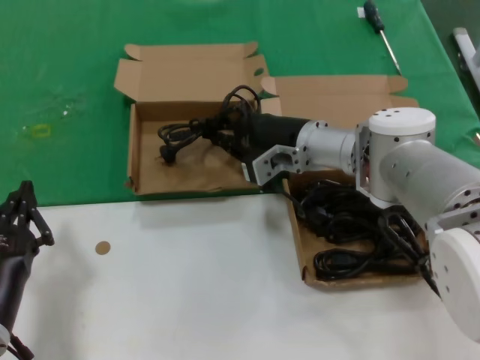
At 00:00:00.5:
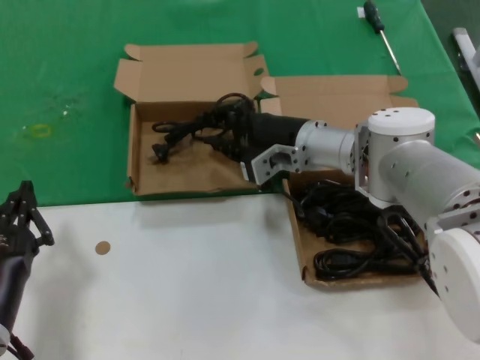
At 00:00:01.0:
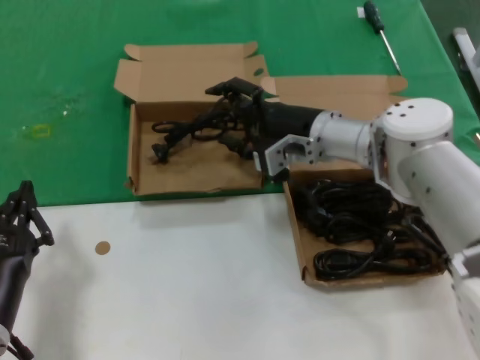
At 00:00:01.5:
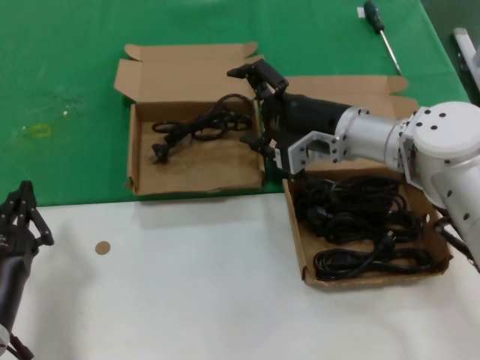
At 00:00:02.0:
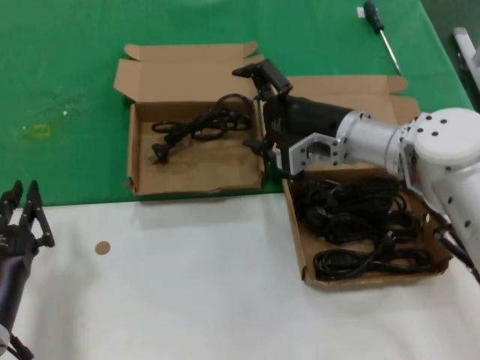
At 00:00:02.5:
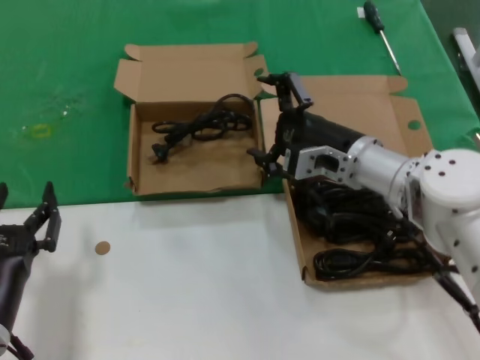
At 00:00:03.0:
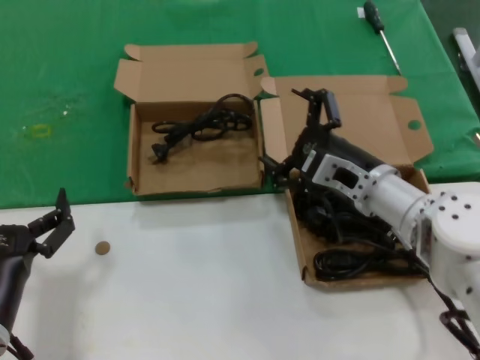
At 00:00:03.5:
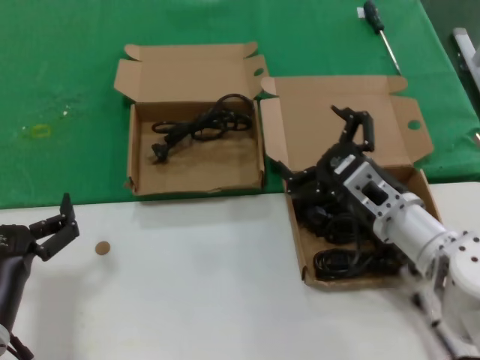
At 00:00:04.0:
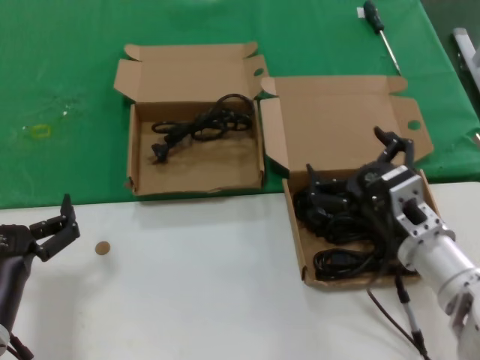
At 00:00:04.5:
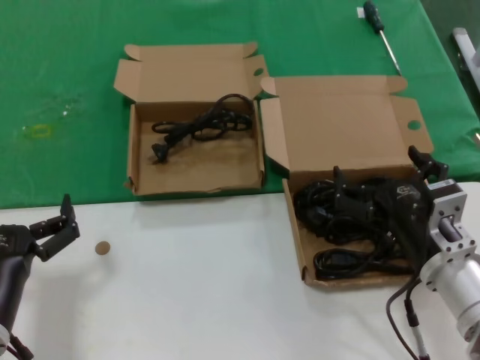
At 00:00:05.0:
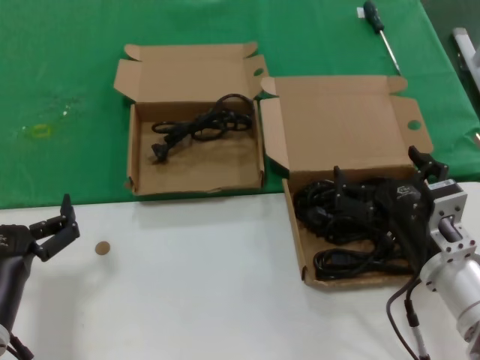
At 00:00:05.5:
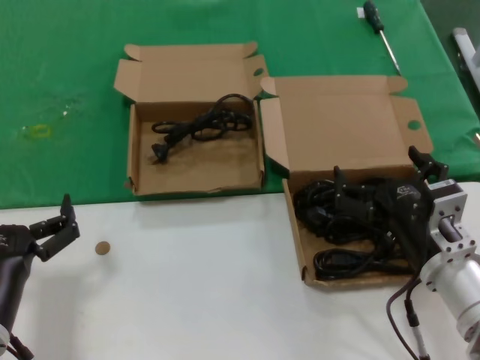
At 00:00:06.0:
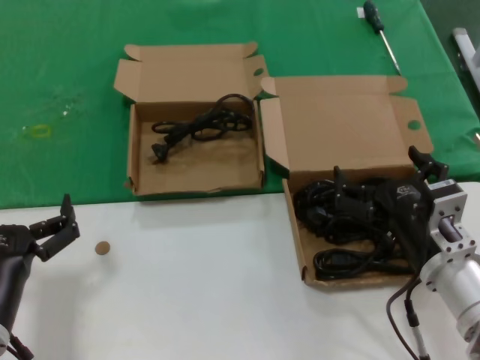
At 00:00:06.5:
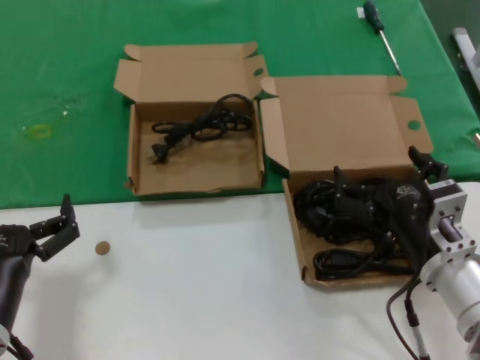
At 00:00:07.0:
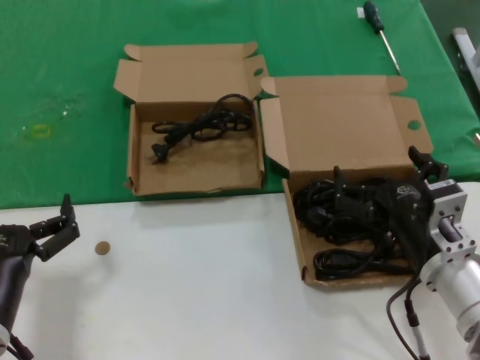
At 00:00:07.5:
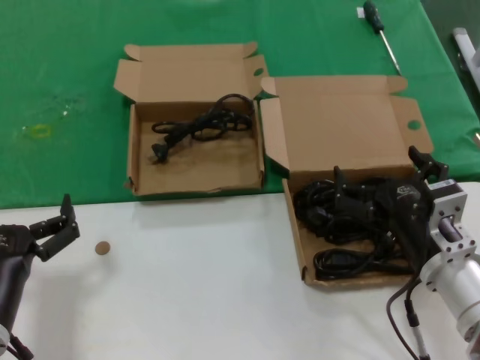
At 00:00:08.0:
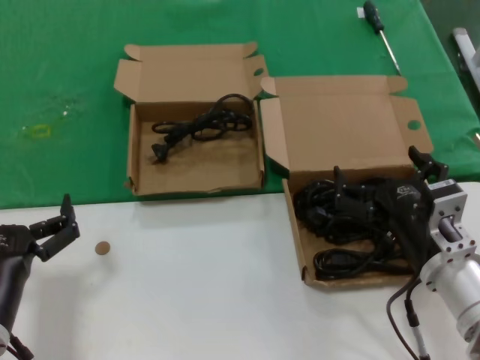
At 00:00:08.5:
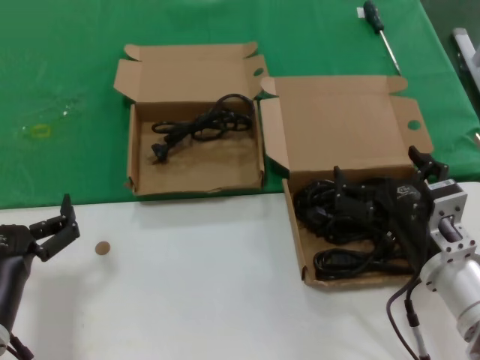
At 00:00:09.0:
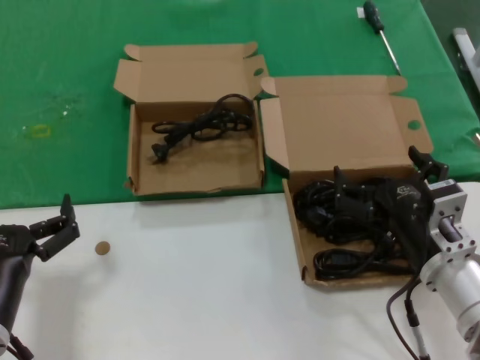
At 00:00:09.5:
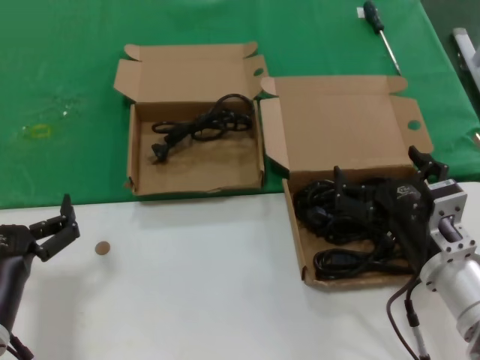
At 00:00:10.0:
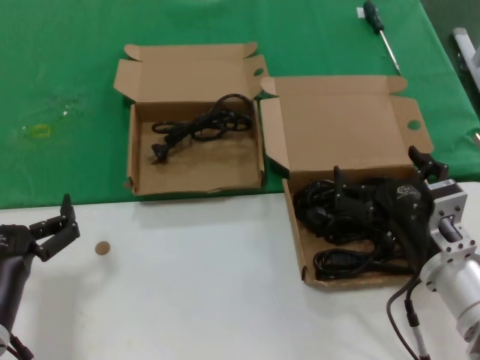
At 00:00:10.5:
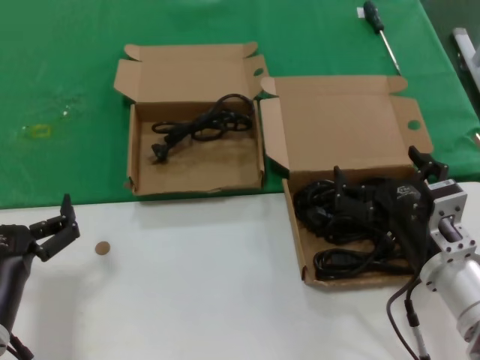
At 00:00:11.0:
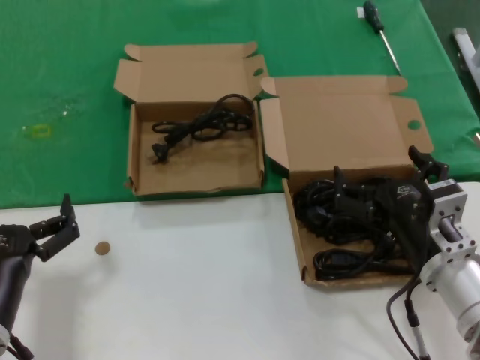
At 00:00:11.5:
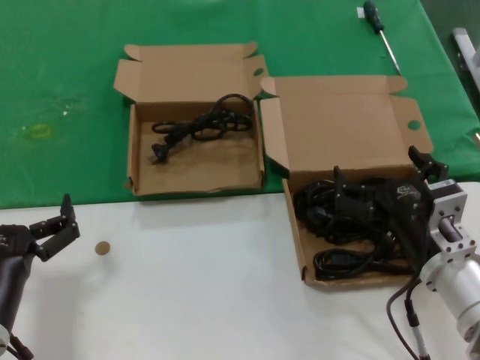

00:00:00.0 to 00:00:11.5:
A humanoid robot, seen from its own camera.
Task of the whole recording: take the parts from the box containing them and put them into an empty box.
00:00:00.0 to 00:00:02.0: The right hand changes place by about 5 cm.
00:00:02.0 to 00:00:04.0: The right hand moves backward and downward, some 20 cm.
00:00:04.0 to 00:00:06.0: The hands move only a little.
00:00:06.0 to 00:00:11.5: Neither hand changes place.

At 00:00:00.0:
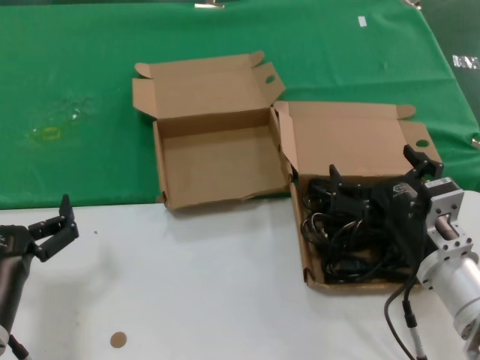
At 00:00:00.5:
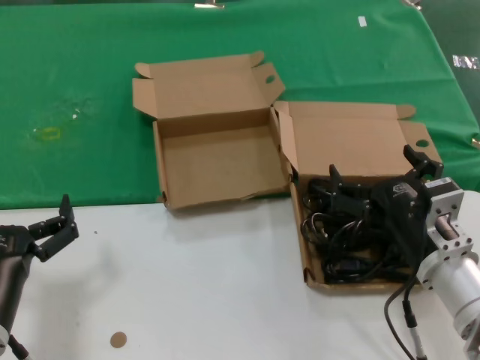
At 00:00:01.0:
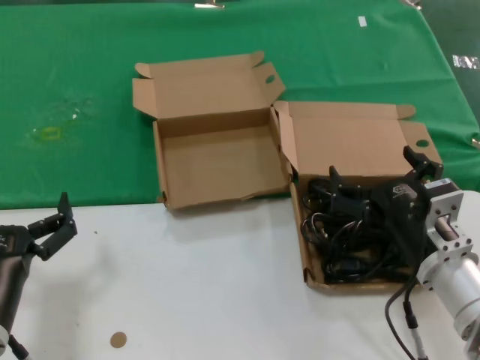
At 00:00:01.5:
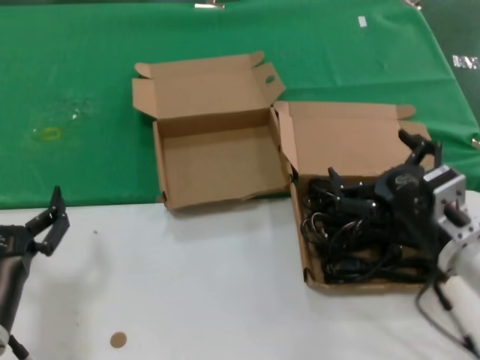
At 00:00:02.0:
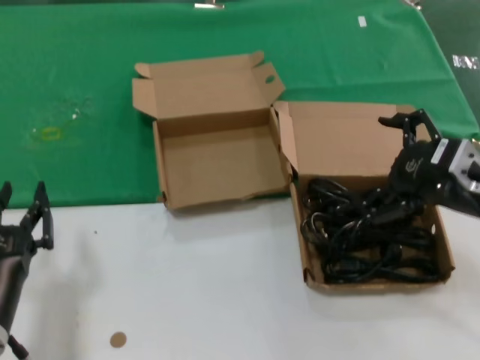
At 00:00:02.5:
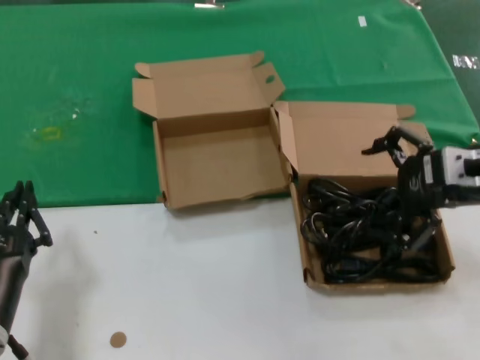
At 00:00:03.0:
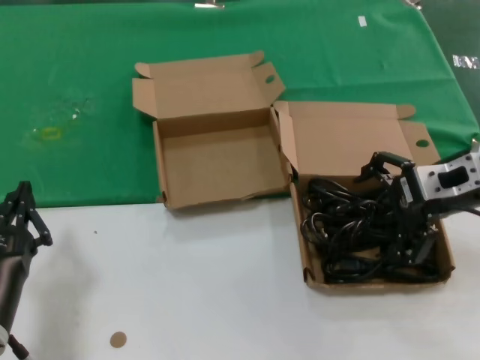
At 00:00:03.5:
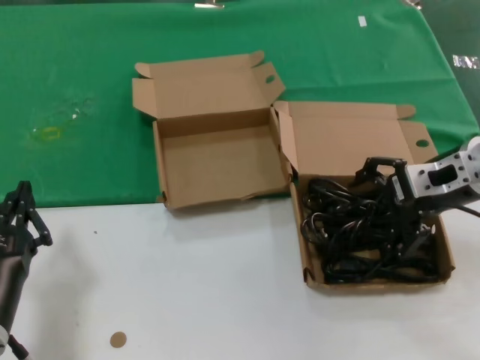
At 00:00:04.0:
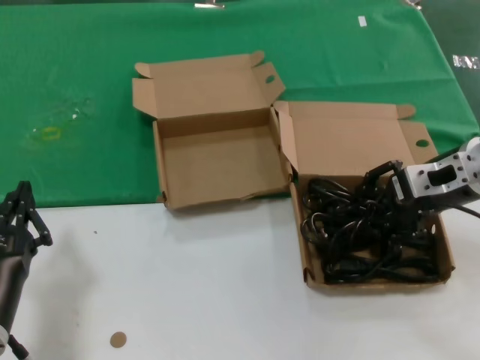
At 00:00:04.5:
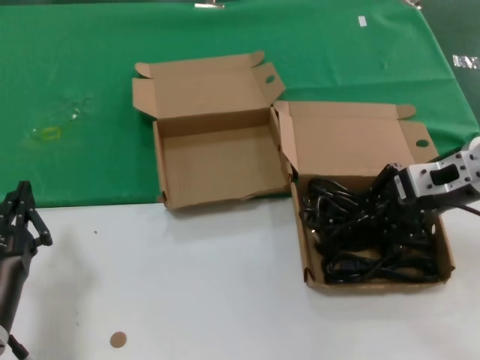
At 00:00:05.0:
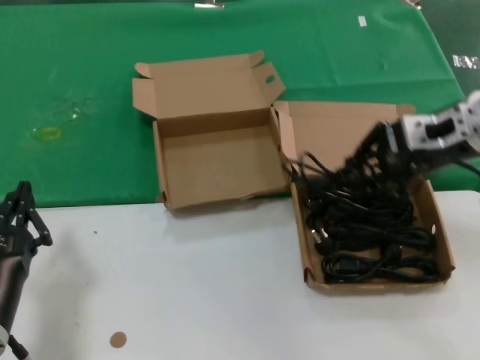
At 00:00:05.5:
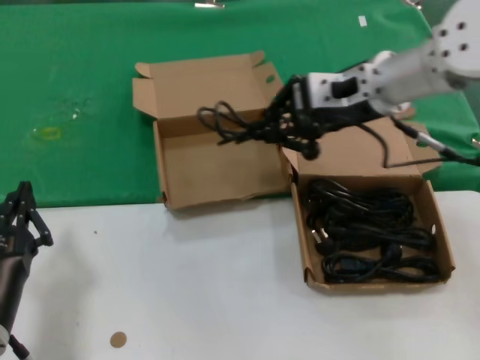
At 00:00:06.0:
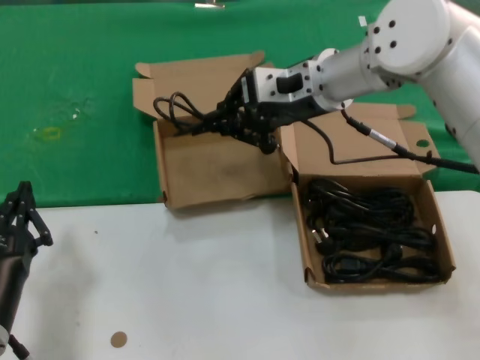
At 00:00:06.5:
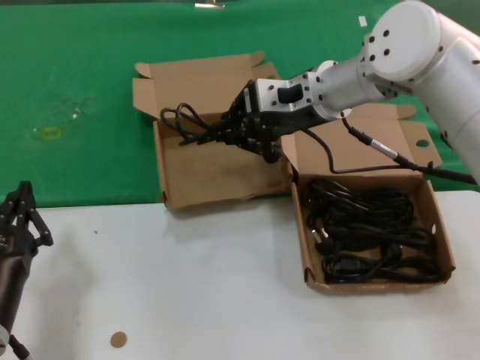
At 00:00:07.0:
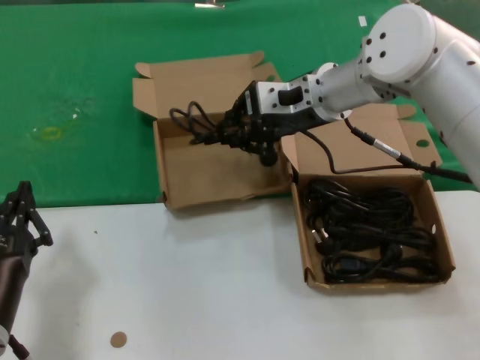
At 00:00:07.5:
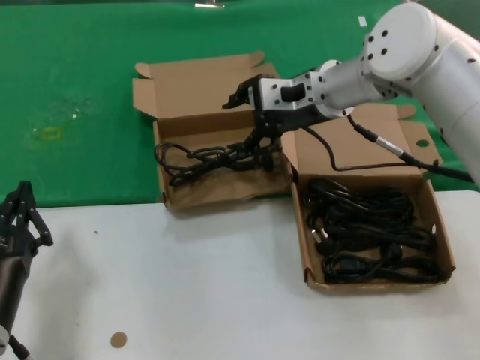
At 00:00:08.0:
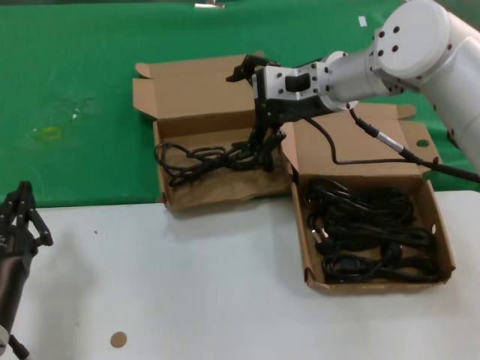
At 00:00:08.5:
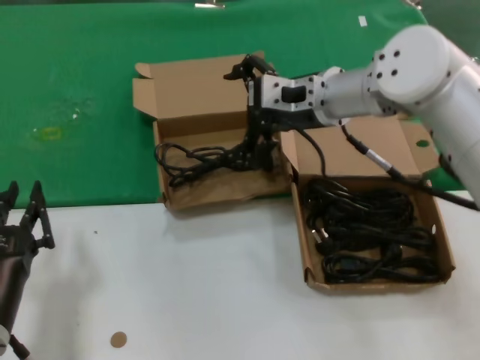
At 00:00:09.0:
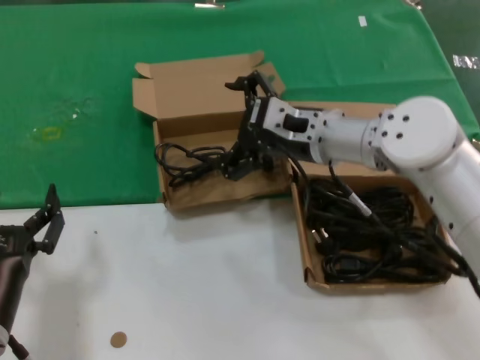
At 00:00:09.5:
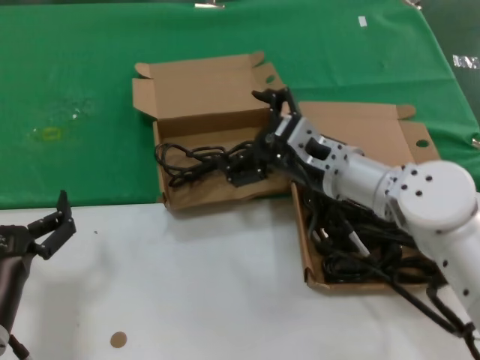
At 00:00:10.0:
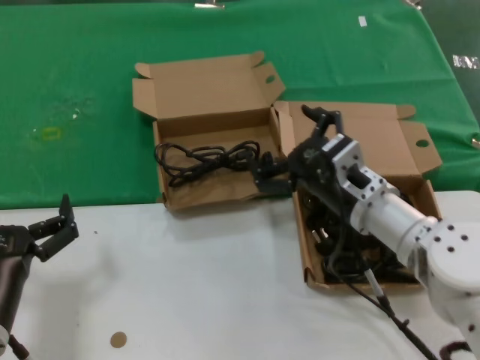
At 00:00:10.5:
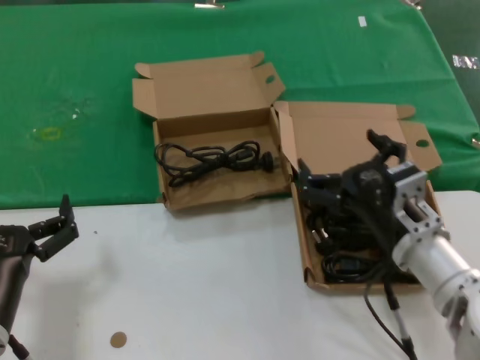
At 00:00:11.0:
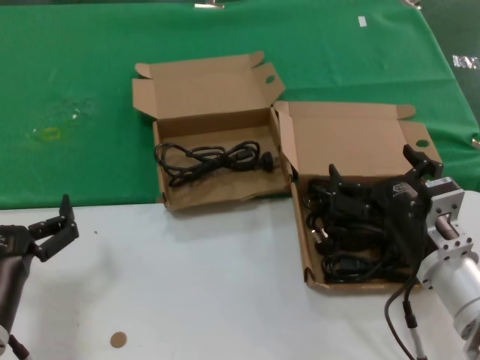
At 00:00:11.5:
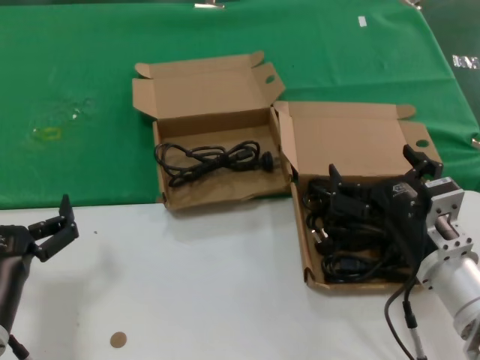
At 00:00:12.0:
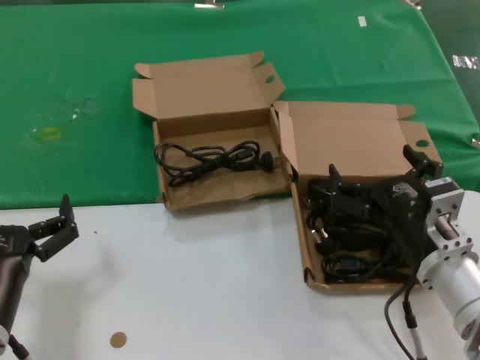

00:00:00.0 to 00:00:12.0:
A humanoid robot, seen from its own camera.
Task of the whole recording: take the parts from the box containing them and put them into an empty box.
Step, 00:00:00.0 to 00:00:04.0: Grasp the data cable.
Step, 00:00:04.5 to 00:00:07.0: Place the data cable in the another box.
00:00:00.0 to 00:00:02.0: The right hand shifts some 15 cm upward and to the right.
00:00:02.0 to 00:00:04.0: The right hand goes approximately 10 cm forward.
00:00:04.0 to 00:00:06.0: The right hand is displaced to the left, forward and upward by some 20 cm.
00:00:06.0 to 00:00:08.0: The hands stay close to where they were, moving slightly.
00:00:08.0 to 00:00:10.0: The right hand is displaced downward and backward by about 20 cm.
00:00:10.0 to 00:00:12.0: The right hand moves backward, some 10 cm.

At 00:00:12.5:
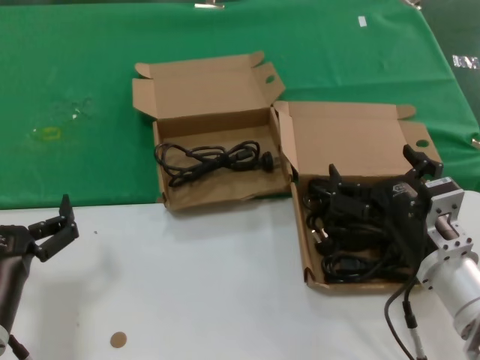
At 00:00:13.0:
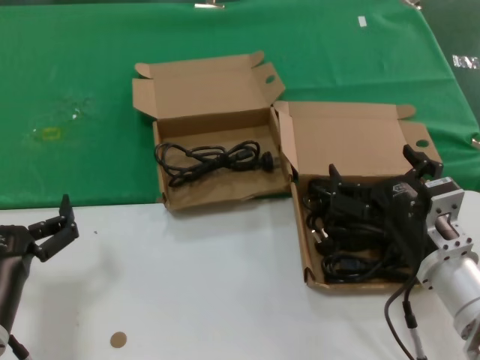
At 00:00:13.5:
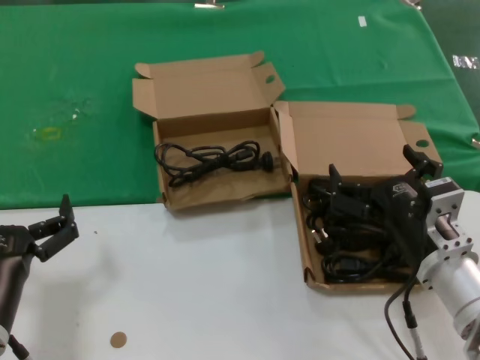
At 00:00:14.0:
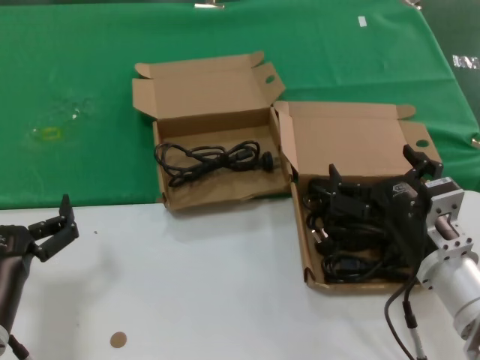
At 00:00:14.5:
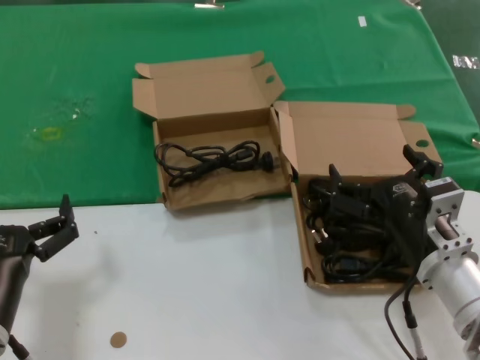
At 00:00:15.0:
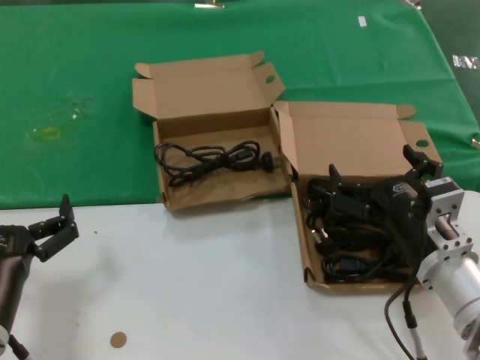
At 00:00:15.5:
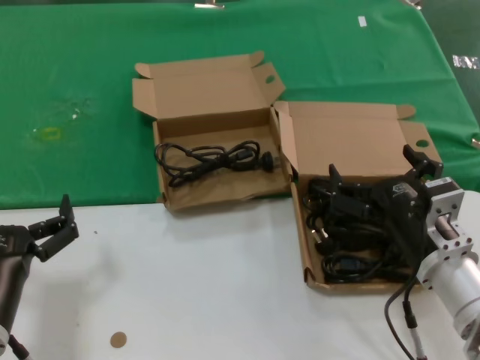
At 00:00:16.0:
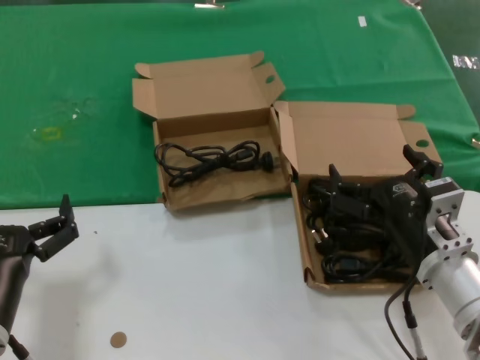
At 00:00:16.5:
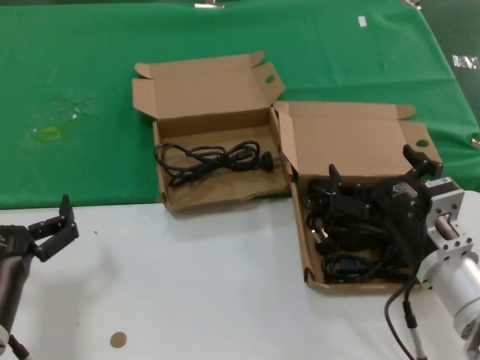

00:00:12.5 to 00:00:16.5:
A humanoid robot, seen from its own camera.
Task of the whole recording: take the parts from the box containing them and put them into an empty box.
00:00:12.5 to 00:00:16.5: Neither hand changes place.
